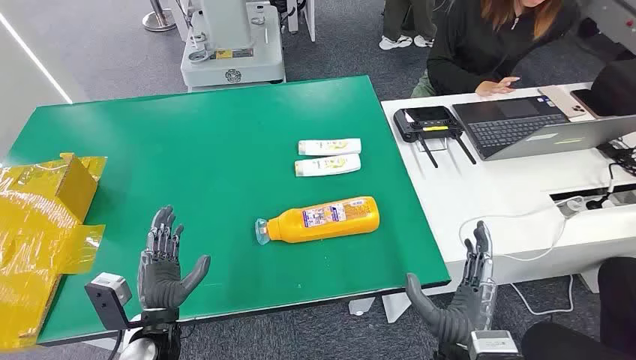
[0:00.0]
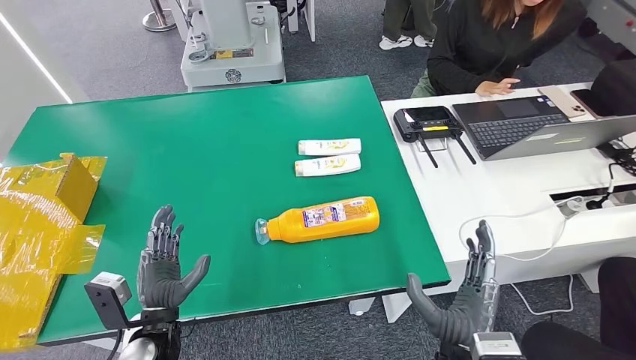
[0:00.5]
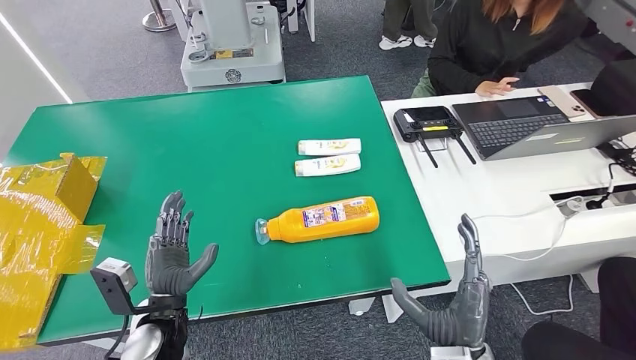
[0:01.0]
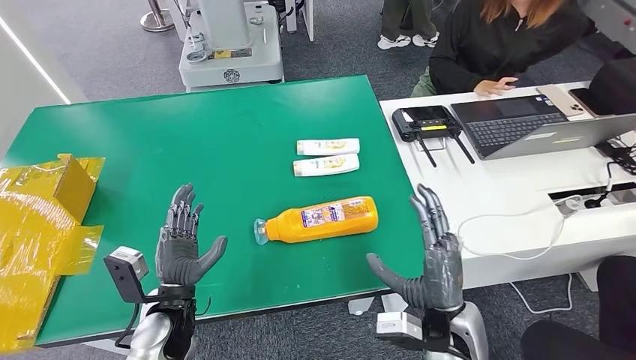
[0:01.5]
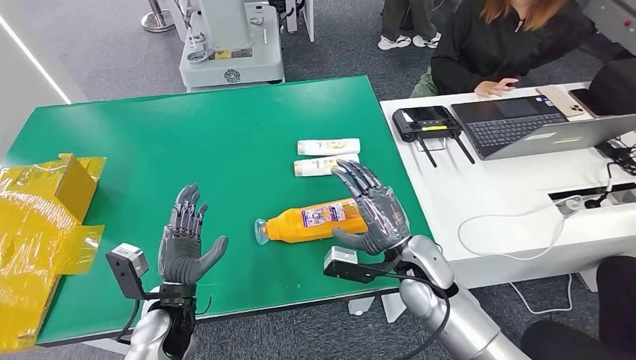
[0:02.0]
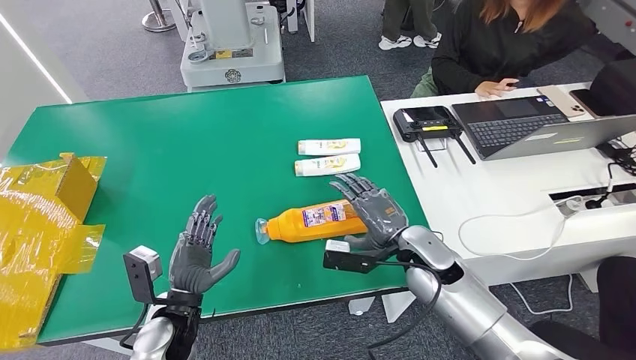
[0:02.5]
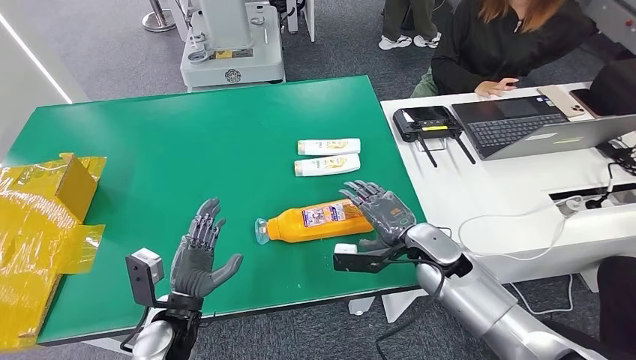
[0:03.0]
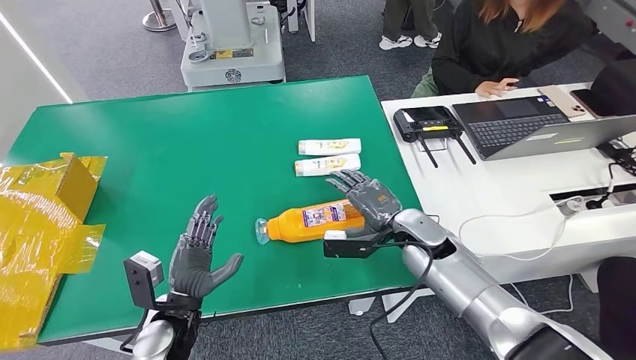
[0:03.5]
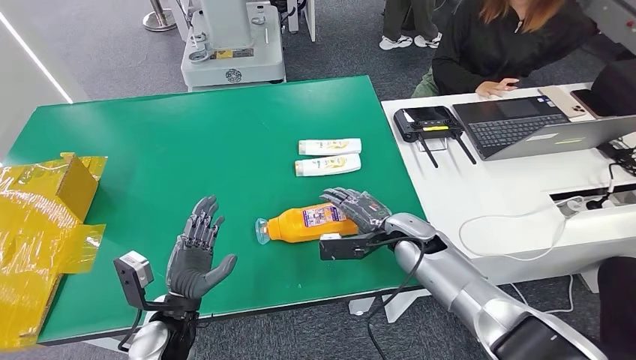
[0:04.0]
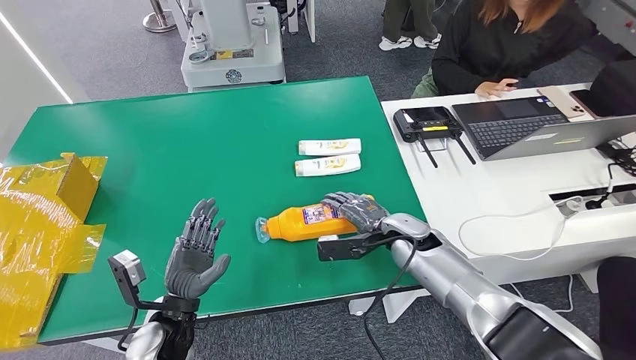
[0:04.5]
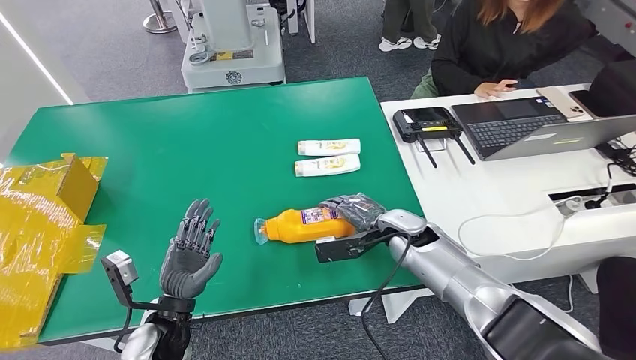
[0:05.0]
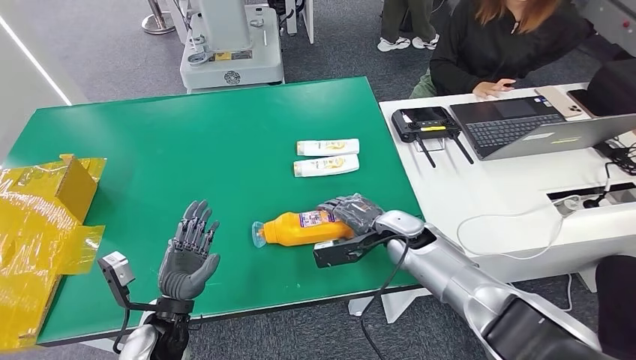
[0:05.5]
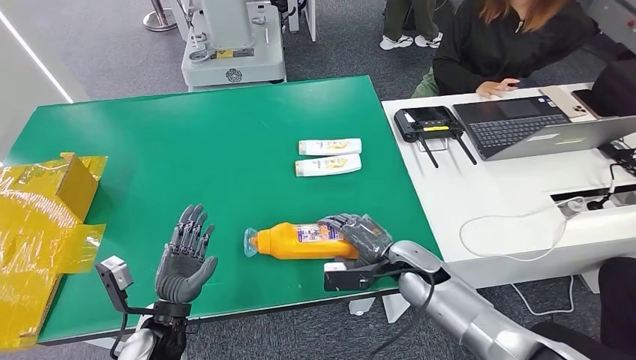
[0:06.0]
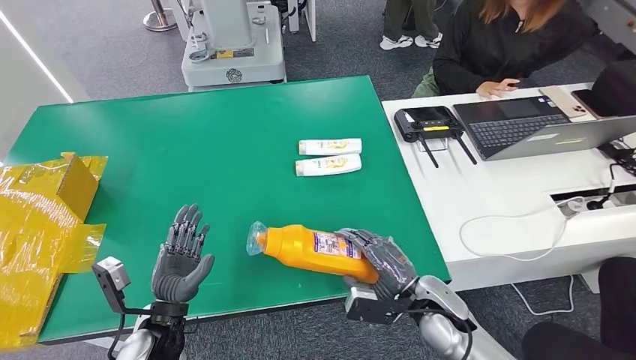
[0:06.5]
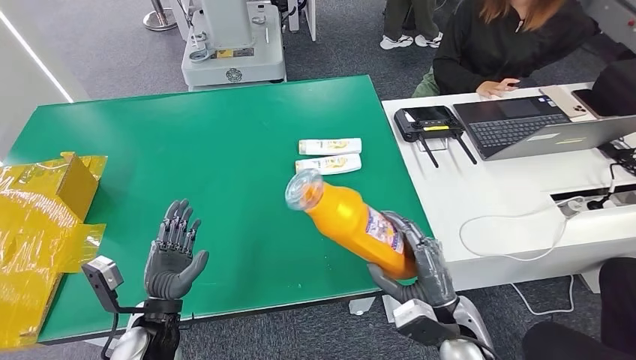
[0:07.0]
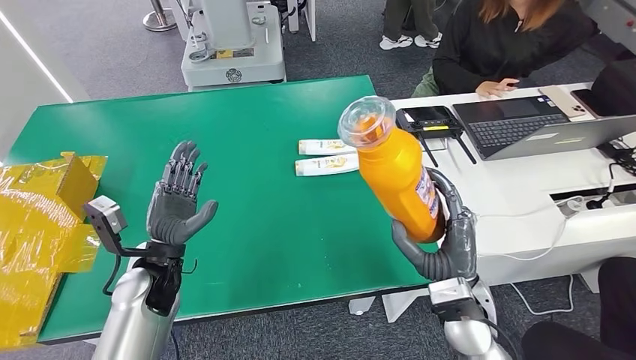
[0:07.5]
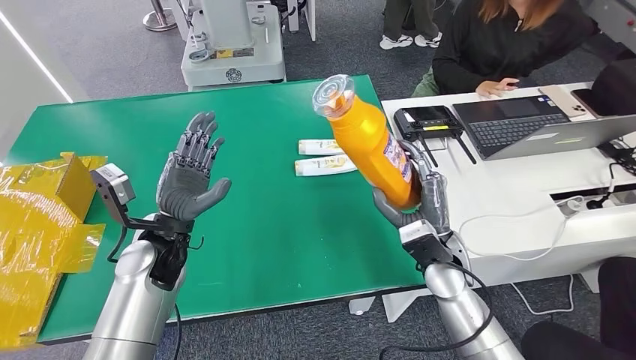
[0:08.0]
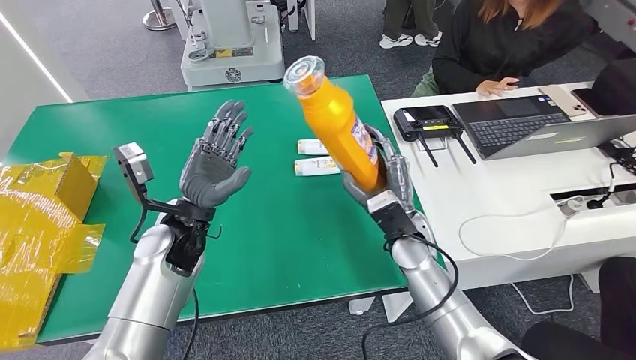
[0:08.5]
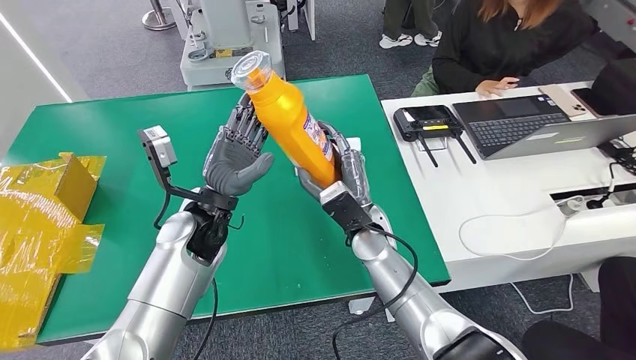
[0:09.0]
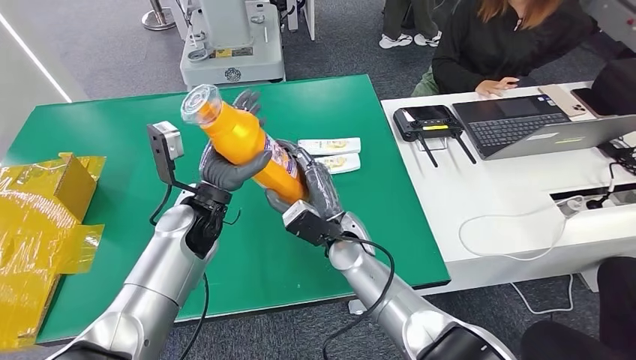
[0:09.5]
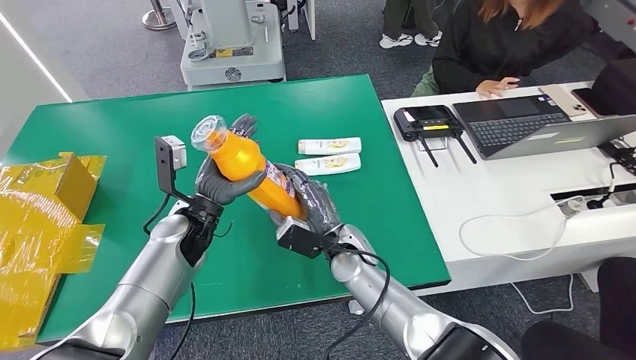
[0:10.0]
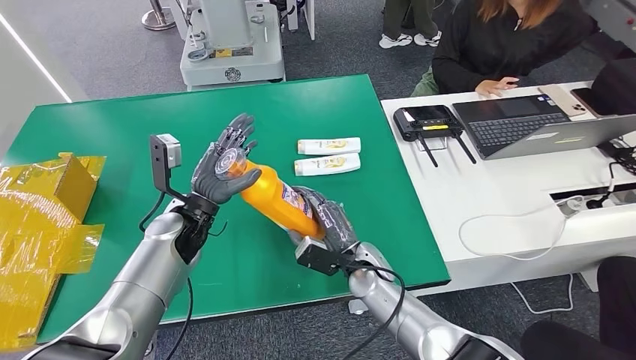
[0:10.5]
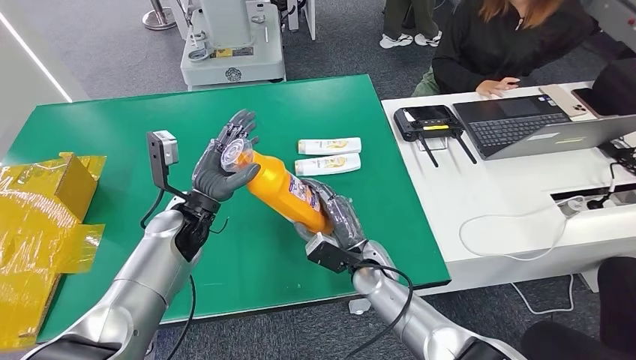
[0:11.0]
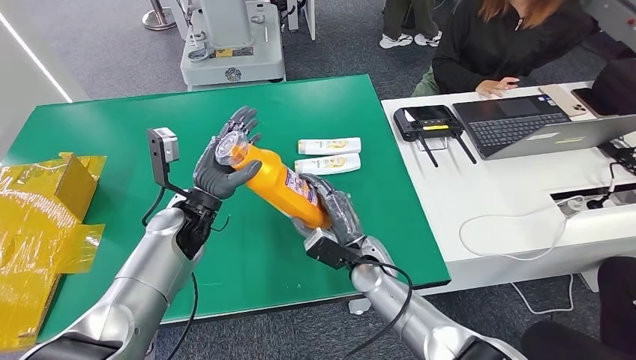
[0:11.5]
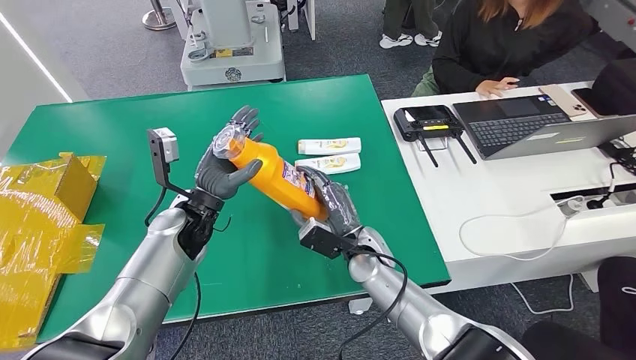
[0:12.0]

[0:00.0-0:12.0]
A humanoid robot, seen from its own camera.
Step, 0:00.0 to 0:07.0: Pick up the bottle from the table.
0:02.0 to 0:04.0: The right hand heads forward, covering roughly 5 cm.
0:04.0 to 0:06.0: The right hand ends up approximately 5 cm from where it was.
0:06.0 to 0:08.0: The right hand goes backward and returns, approximately 15 cm each way. Meanwhile the left hand shifts approximately 15 cm upward and forward.

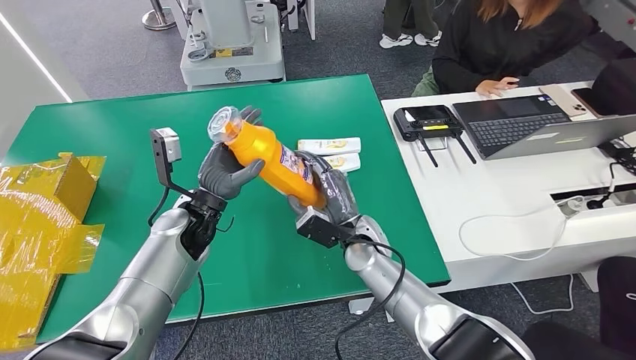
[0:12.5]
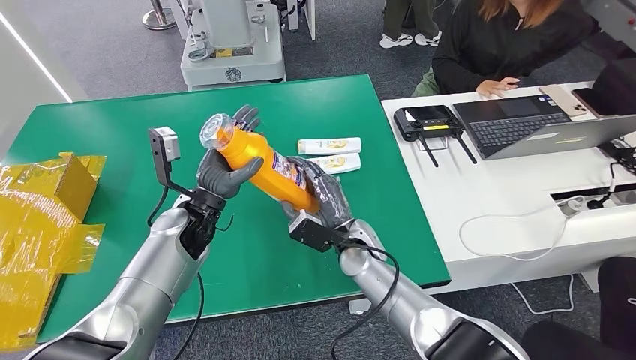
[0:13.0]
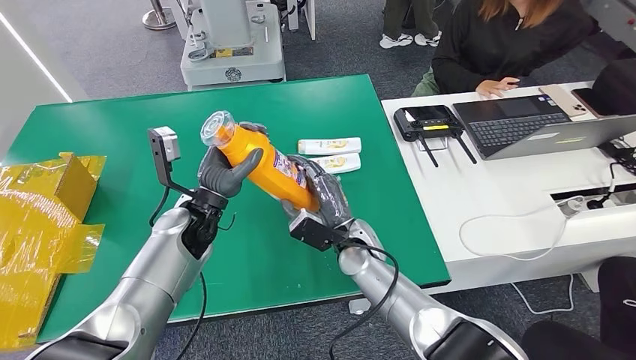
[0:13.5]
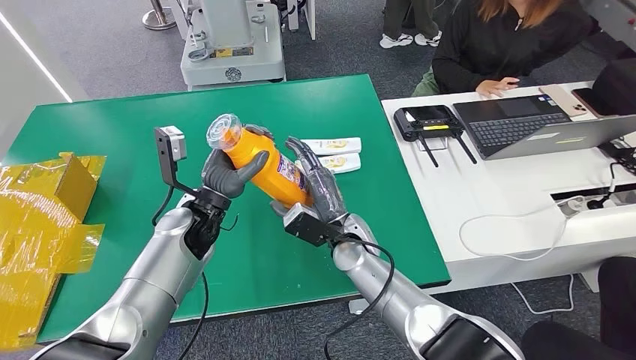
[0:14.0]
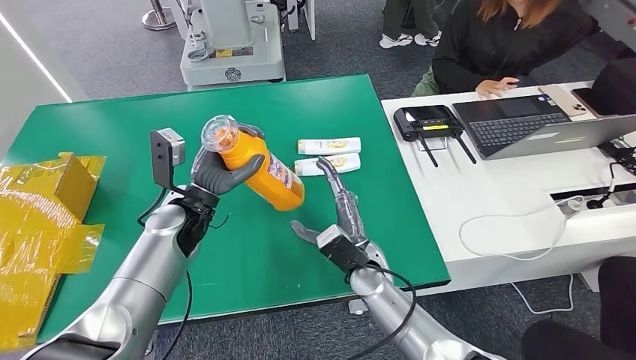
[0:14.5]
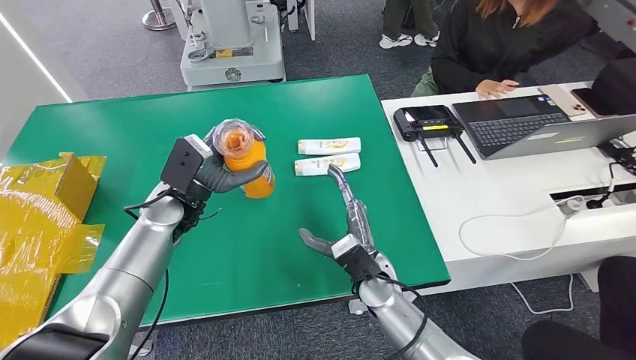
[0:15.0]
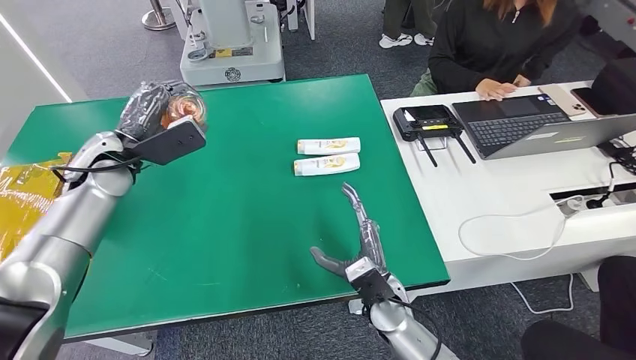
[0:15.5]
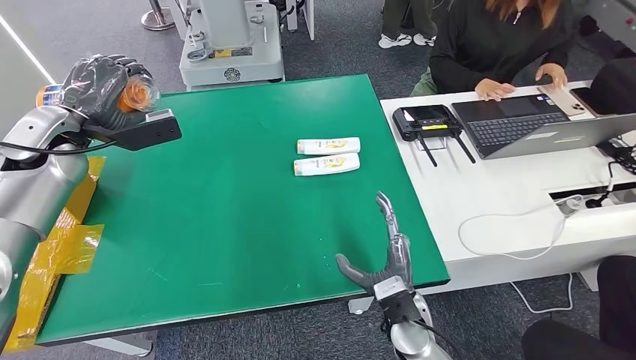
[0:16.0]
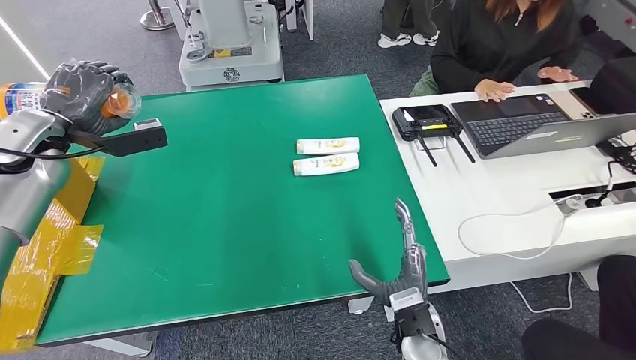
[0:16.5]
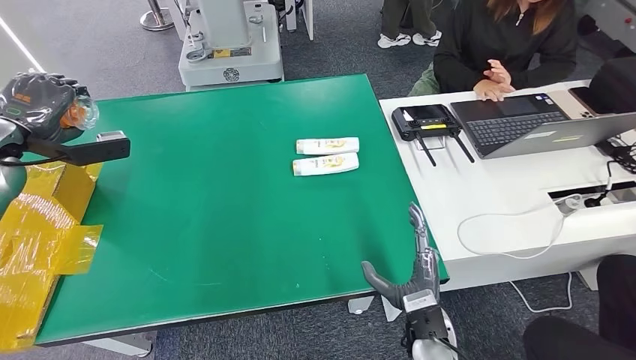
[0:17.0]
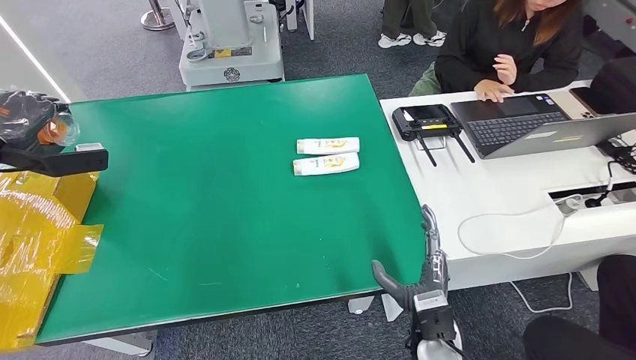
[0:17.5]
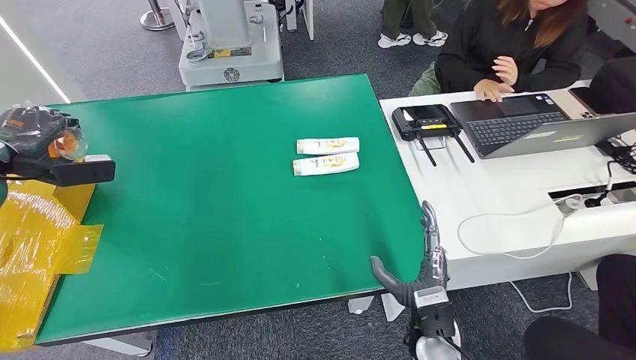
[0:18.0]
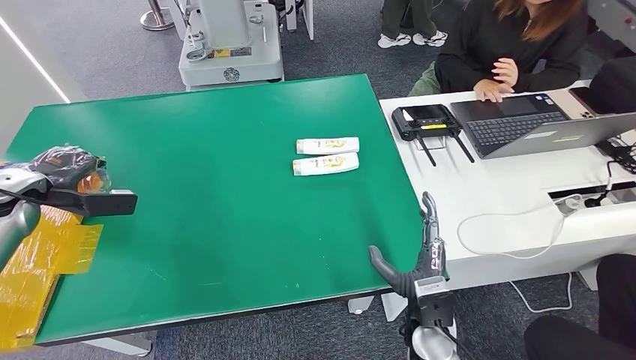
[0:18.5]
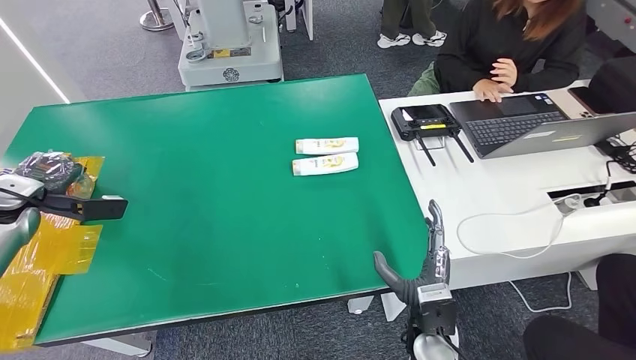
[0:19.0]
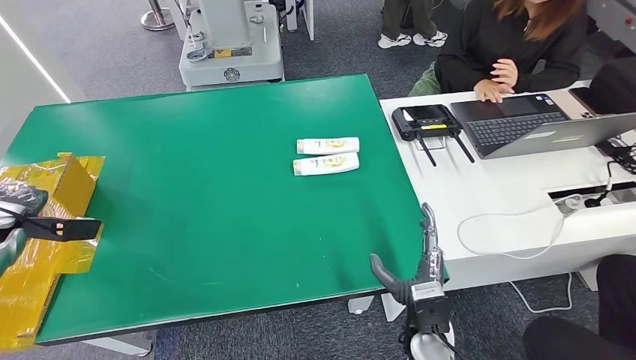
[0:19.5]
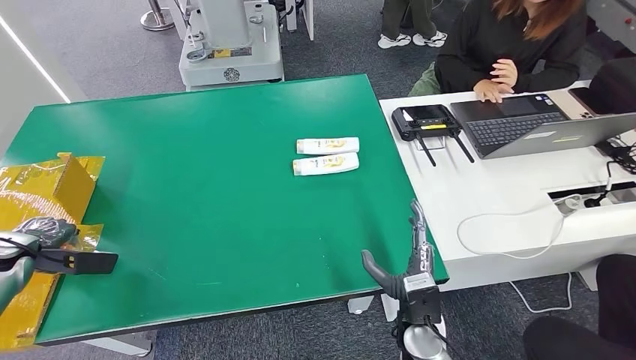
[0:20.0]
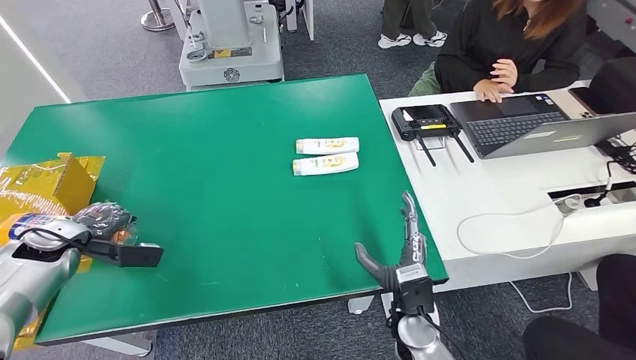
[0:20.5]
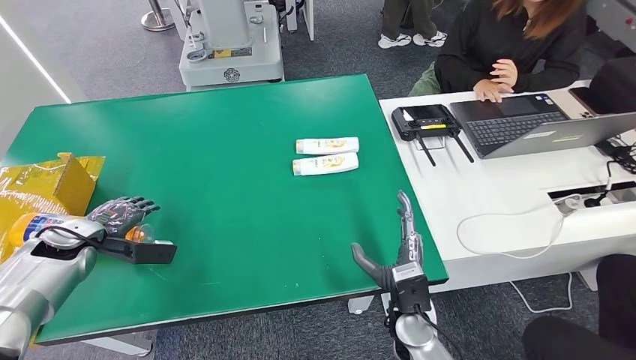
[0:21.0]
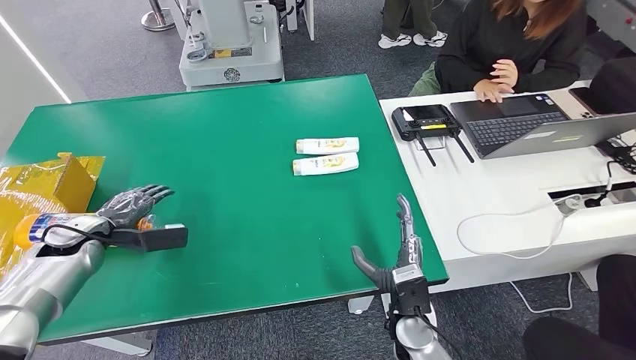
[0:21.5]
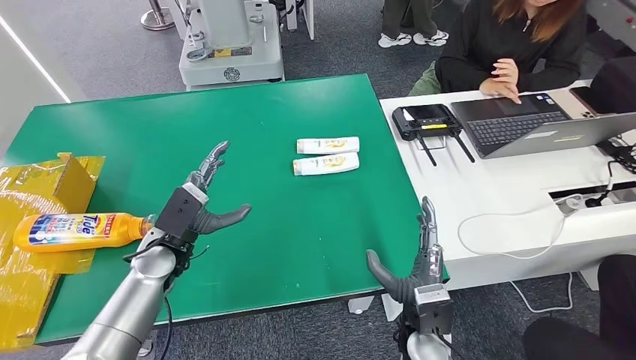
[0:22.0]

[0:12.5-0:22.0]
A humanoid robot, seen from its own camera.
Step, 0:12.5 to 0:22.0: Turn the bottle to the front side.
0:12.5 to 0:14.5: The right hand shifts by approximately 5 cm.
0:16.5 to 0:18.0: The left hand is displaced to the left by roughly 10 cm.
0:18.0 to 0:20.0: The left hand goes roughly 15 cm downward and backward.
0:20.0 to 0:22.0: The left hand travels to the right by approximately 30 cm.
